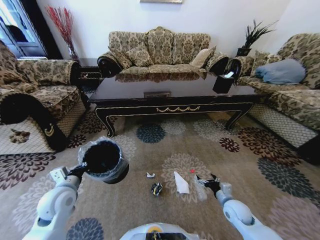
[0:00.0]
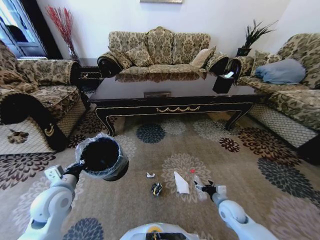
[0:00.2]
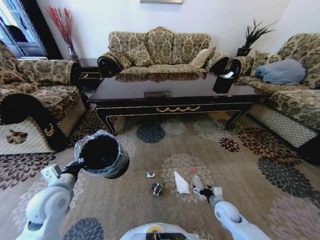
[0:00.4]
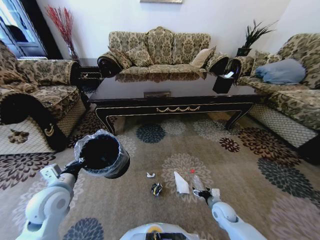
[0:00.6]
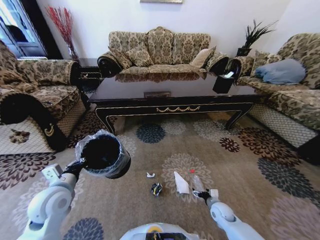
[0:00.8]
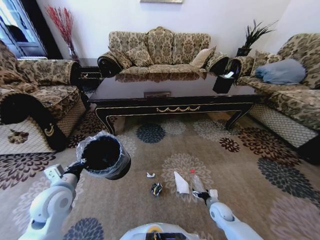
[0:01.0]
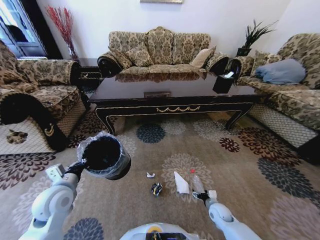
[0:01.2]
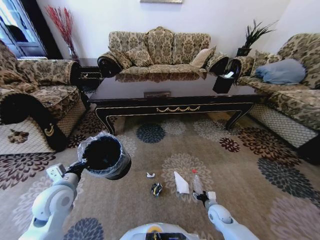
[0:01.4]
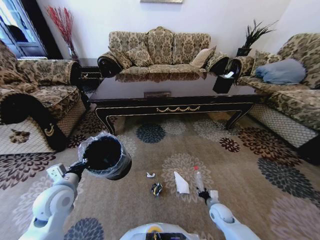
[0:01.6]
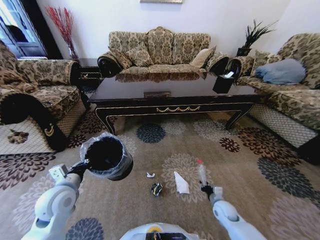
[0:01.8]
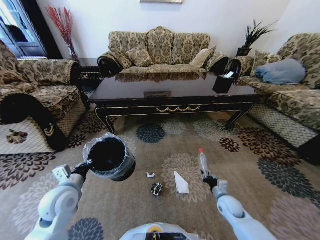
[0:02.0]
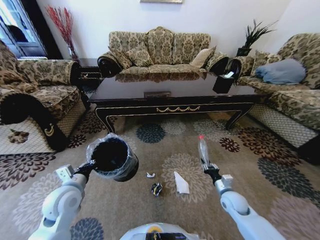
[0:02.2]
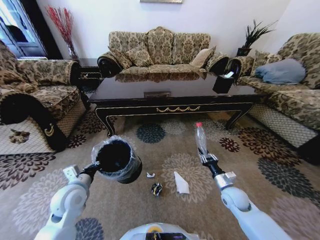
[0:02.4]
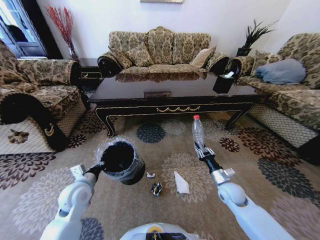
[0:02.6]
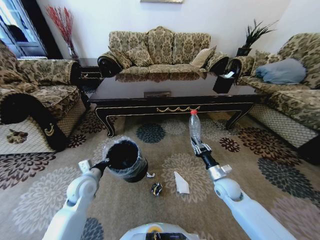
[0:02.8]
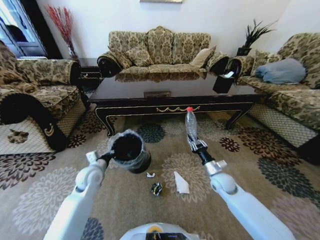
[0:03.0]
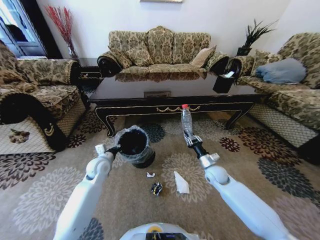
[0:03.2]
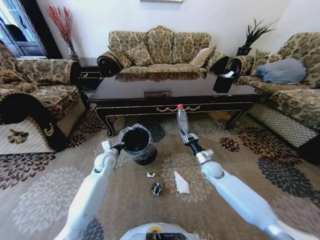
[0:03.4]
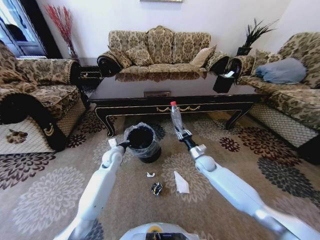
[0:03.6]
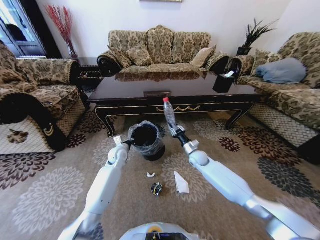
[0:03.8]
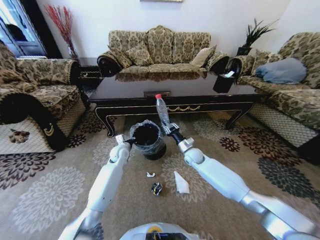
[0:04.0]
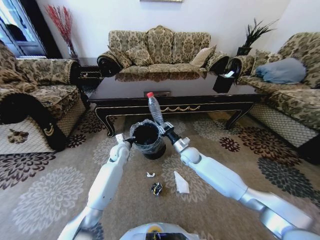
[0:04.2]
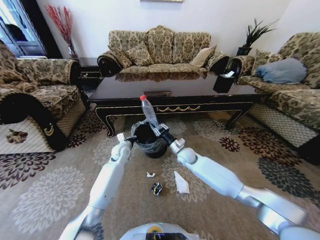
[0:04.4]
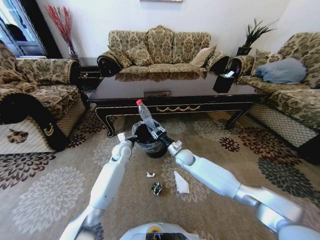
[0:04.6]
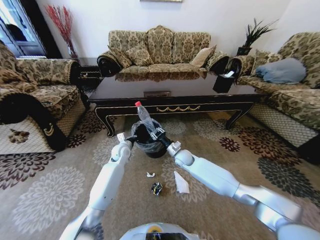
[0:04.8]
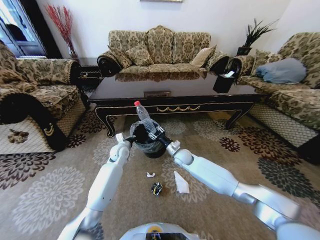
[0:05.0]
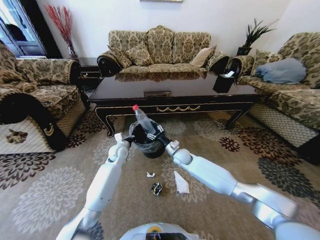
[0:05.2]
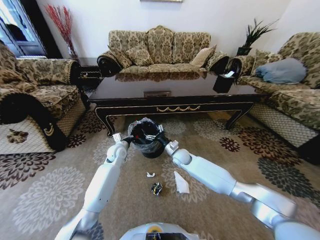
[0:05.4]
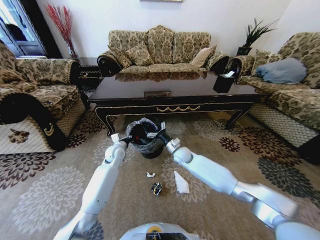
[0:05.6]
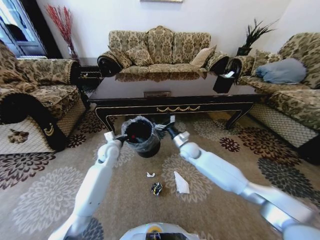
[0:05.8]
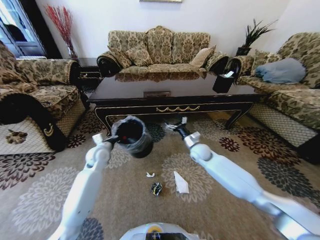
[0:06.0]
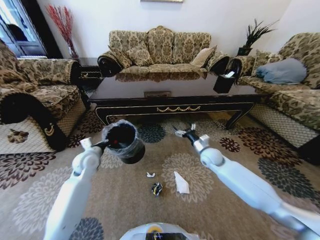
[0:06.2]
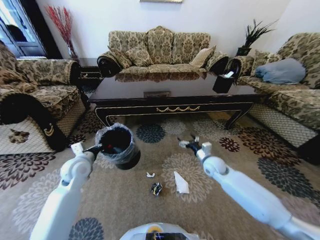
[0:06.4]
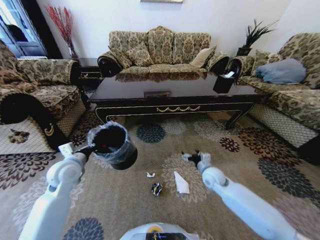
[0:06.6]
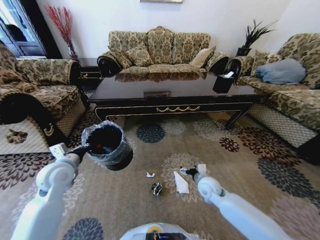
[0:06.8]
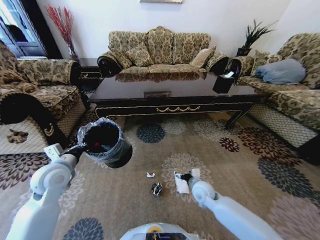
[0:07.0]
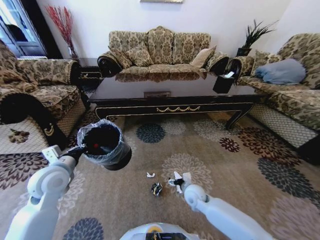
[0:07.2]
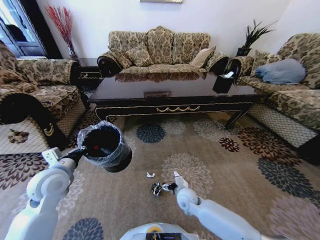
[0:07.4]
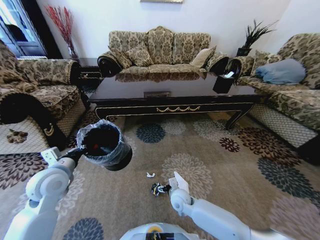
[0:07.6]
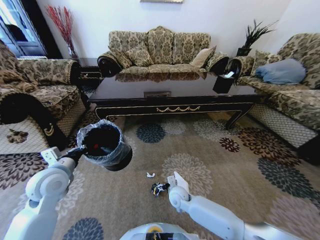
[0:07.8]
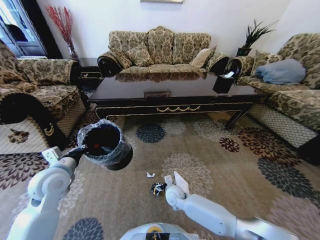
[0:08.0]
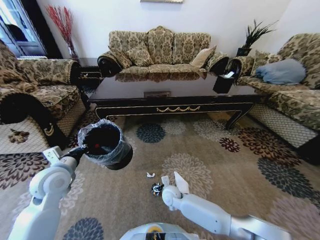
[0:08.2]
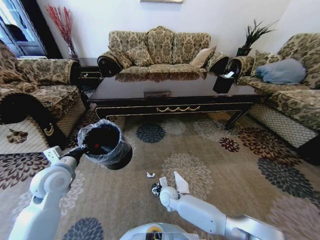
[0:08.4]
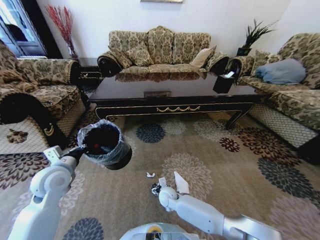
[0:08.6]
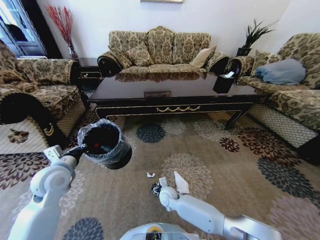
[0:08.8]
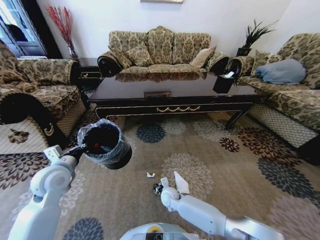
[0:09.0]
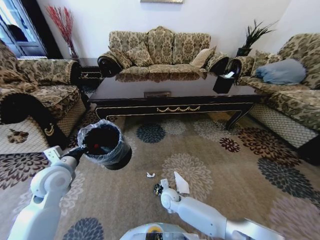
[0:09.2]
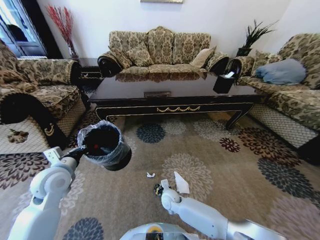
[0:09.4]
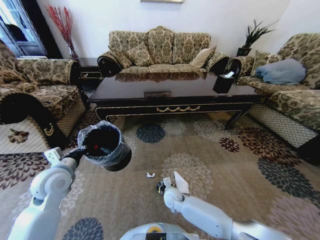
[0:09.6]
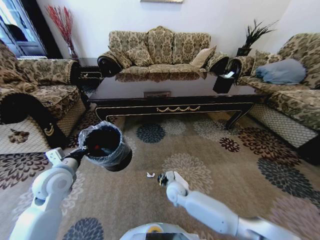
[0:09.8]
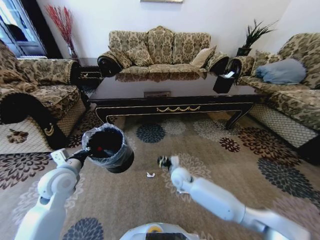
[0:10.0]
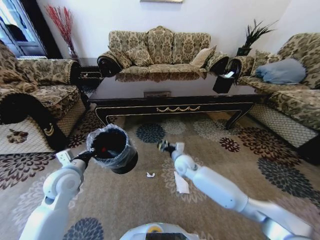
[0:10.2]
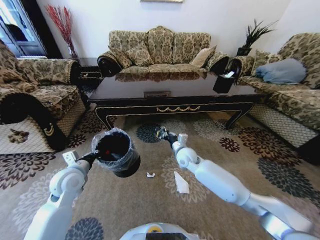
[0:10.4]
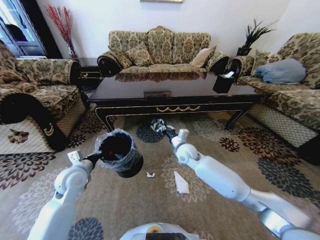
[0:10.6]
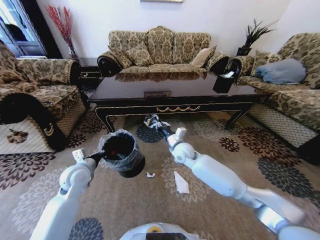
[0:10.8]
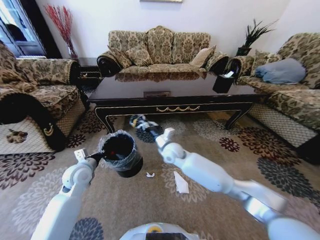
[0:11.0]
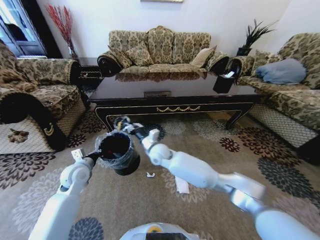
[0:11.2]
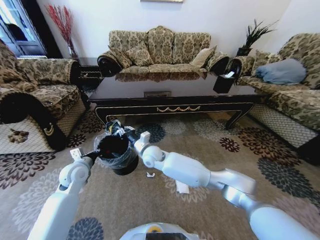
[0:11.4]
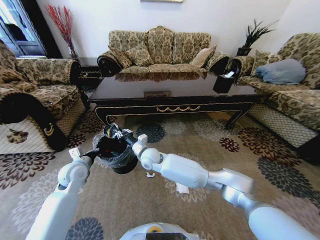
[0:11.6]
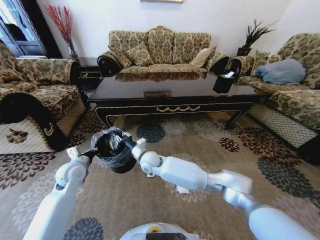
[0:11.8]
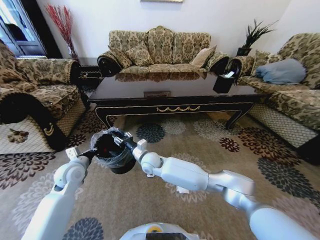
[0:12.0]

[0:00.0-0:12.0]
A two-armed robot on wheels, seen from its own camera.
Task of the whole recording: Move to the front of the table and pick up the trash from the floor, then place it into the trash bin.
0:00.0 to 0:01.6: The right gripper goes roughly 10 cm downward, and closes its fingers.
0:01.6 to 0:03.0: The left gripper shifts approximately 10 cm forward and downward; the right gripper shifts approximately 20 cm upward and forward.
0:03.0 to 0:04.4: The right gripper goes approximately 20 cm to the left and forward. The left gripper moves forward and to the right, some 20 cm.
0:04.4 to 0:06.0: The right gripper shifts some 5 cm to the right, and opens. Meanwhile the left gripper travels to the left and backward by approximately 10 cm.
0:06.0 to 0:07.6: The left gripper moves backward, upward and to the left, about 20 cm. Meanwhile the right gripper moves backward, downward and to the left, approximately 25 cm.
0:07.6 to 0:09.0: The right gripper moves downward, about 5 cm, and closes up.
0:09.0 to 0:10.4: The right gripper travels upward and forward by some 25 cm, and closes its fingers.
0:10.4 to 0:12.0: The right gripper travels to the left by approximately 15 cm.

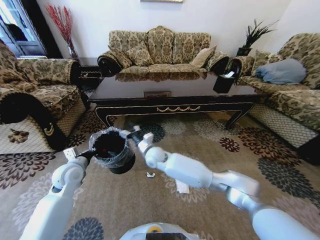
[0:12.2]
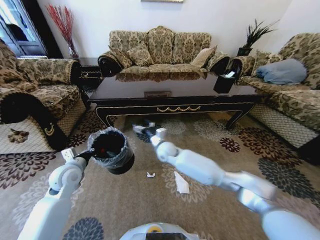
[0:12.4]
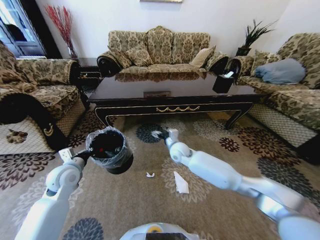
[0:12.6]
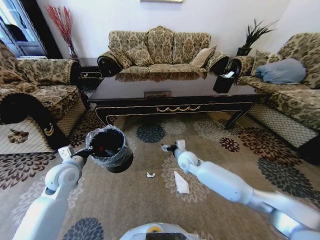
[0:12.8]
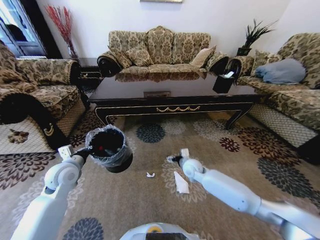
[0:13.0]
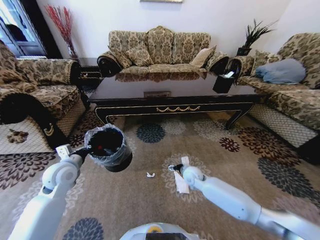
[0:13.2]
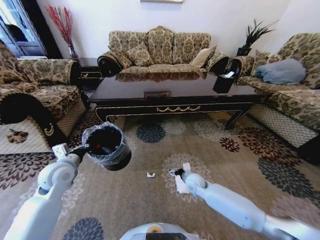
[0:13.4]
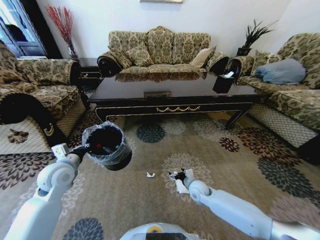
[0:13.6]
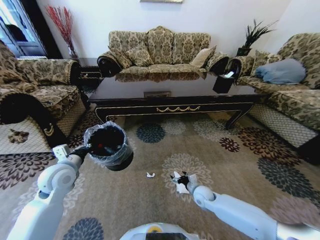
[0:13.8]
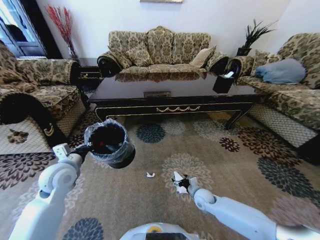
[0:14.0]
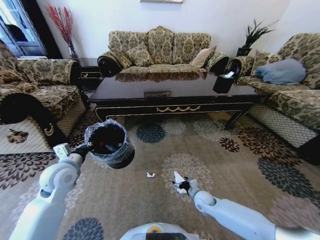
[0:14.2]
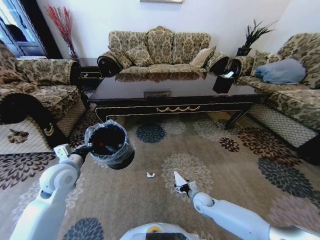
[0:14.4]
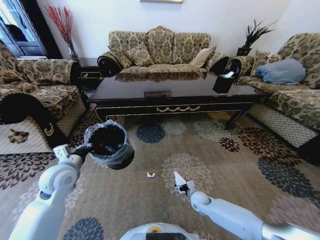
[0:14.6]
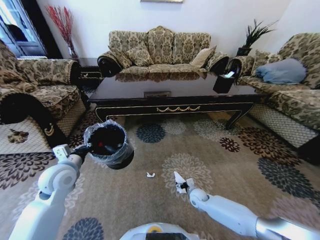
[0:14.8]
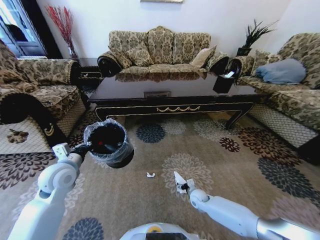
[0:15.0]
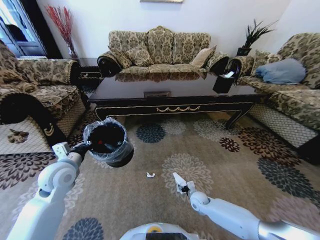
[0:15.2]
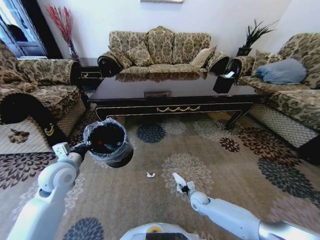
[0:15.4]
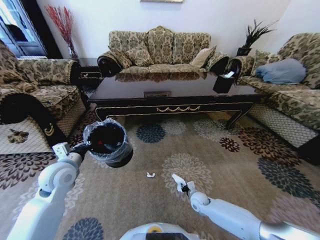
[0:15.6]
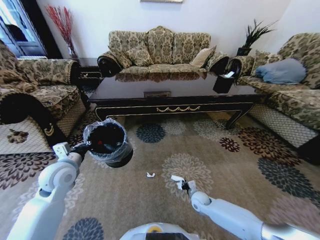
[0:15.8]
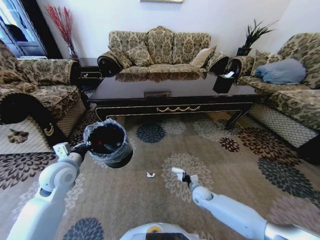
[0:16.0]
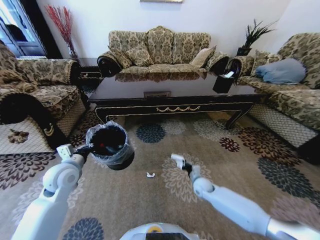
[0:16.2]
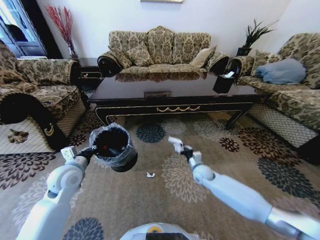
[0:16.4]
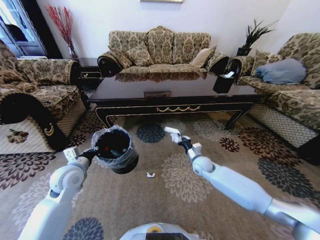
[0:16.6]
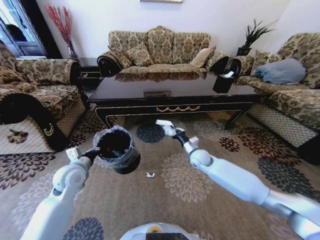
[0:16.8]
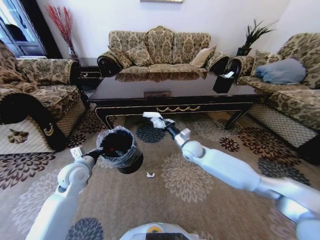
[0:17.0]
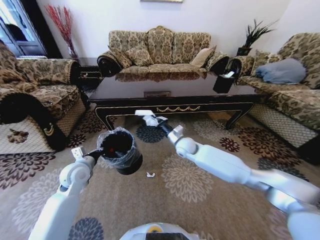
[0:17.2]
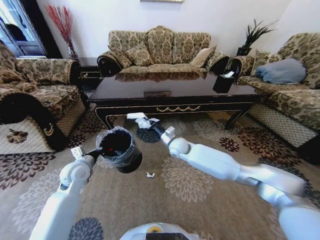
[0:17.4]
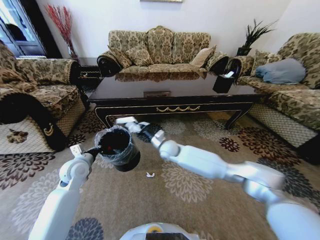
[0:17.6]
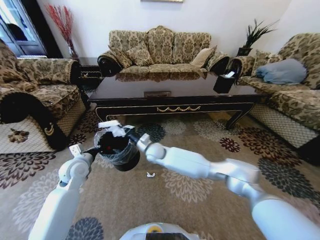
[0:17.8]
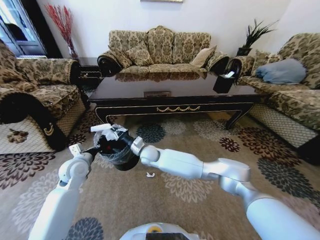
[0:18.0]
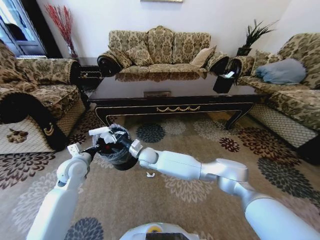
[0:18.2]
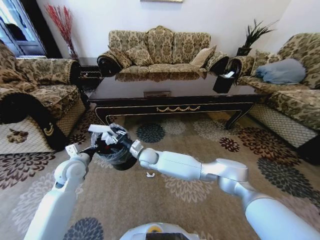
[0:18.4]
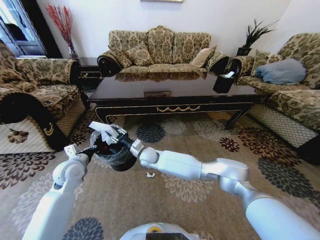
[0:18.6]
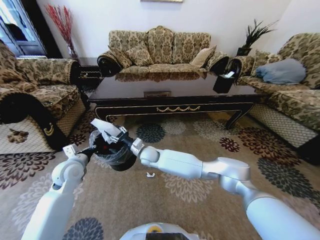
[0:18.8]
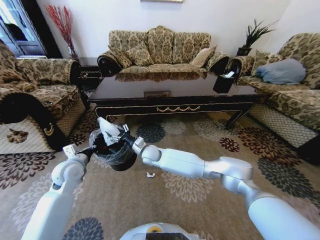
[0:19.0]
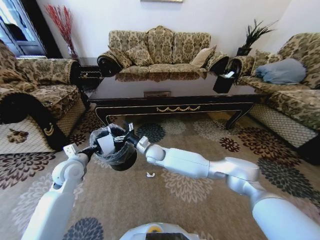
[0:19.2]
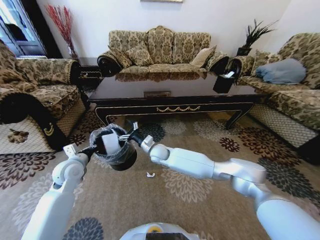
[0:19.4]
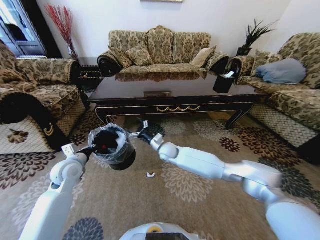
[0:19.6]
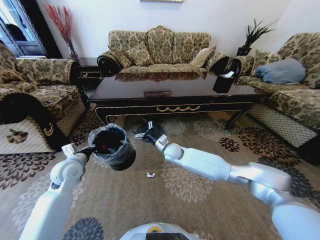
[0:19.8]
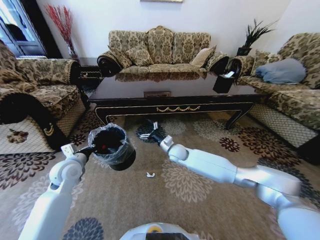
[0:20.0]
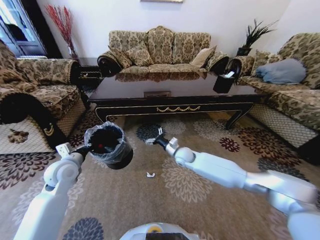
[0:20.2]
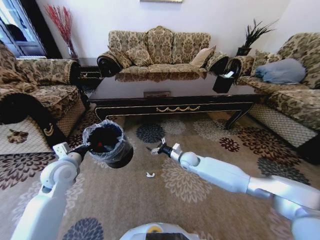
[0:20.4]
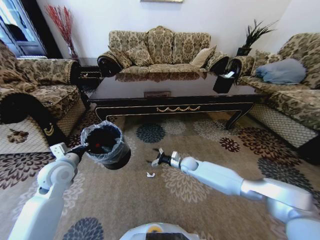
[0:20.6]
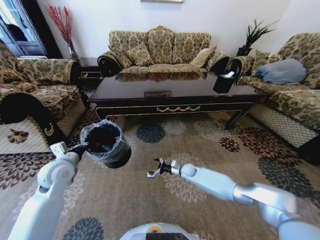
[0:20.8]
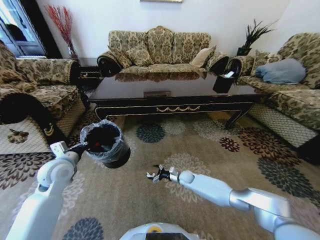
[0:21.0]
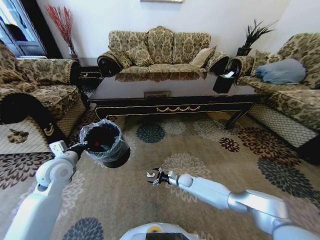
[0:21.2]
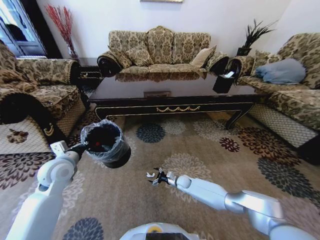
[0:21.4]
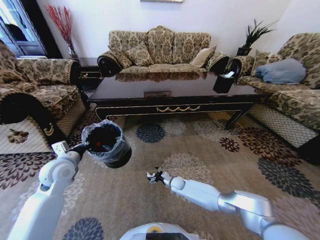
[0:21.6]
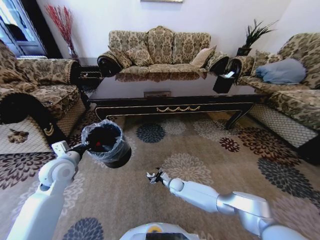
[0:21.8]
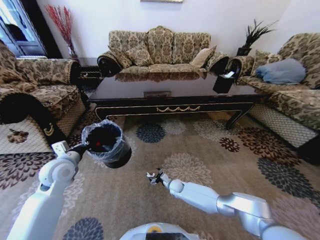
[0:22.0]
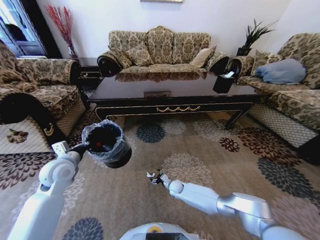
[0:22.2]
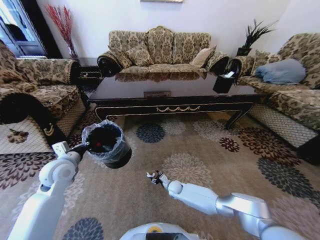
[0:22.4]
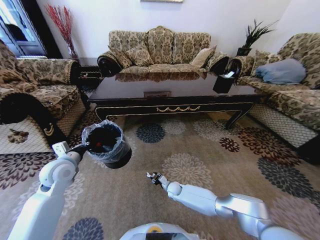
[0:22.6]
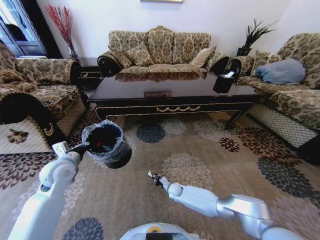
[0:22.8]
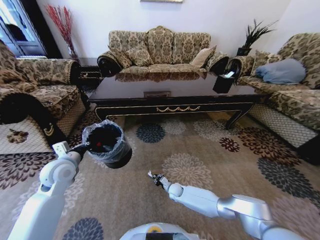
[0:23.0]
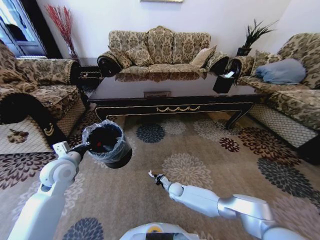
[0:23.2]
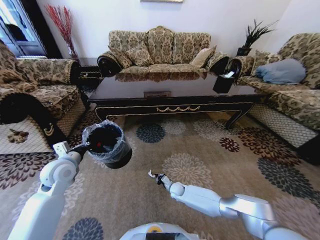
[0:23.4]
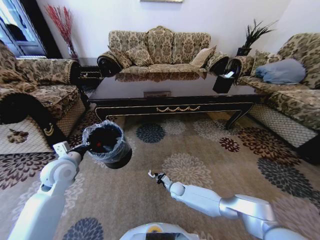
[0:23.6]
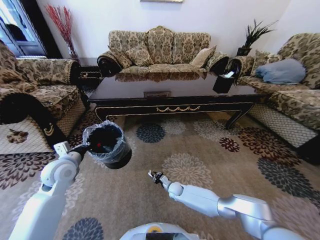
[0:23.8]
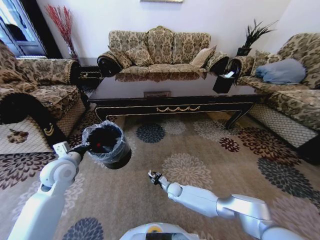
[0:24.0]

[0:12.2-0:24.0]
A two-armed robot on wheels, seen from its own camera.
Task of the whole recording: Move to the front of the table and pick up the trash from the floor, then place it into the trash bin.
0:12.2 to 0:13.6: The right gripper heads to the right, downward and backward, covering approximately 30 cm.
0:13.6 to 0:15.2: The right gripper goes about 10 cm downward.
0:15.2 to 0:16.6: The right gripper travels upward and forward by some 20 cm, and closes up.
0:16.6 to 0:18.2: The right gripper shifts some 30 cm to the left.
0:18.2 to 0:19.6: The right gripper shifts approximately 10 cm to the right, and opens up.
0:19.6 to 0:21.0: The right gripper goes some 25 cm downward and to the right.
0:21.0 to 0:22.6: The right gripper goes roughly 10 cm to the left and backward, and closes up.
0:22.6 to 0:24.0: The right gripper closes, then opens again.
